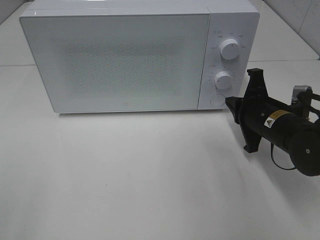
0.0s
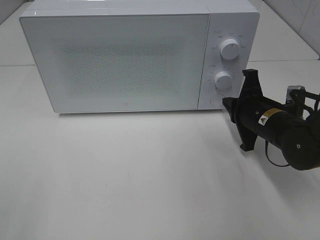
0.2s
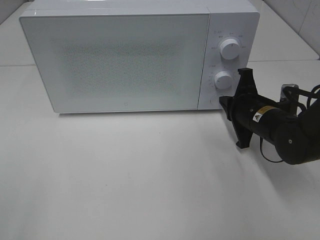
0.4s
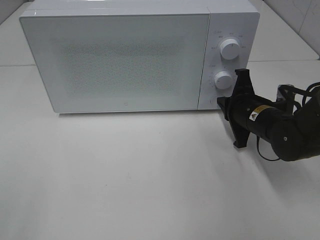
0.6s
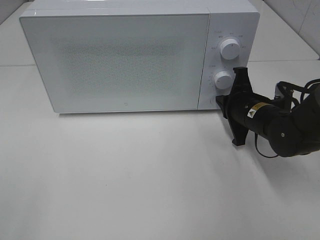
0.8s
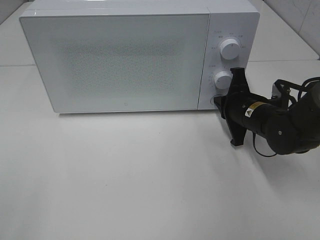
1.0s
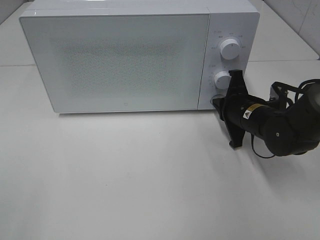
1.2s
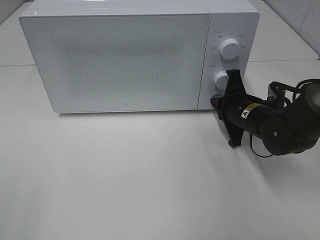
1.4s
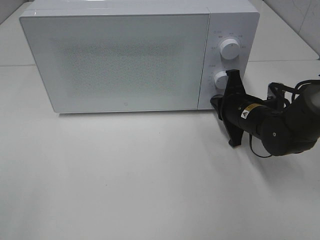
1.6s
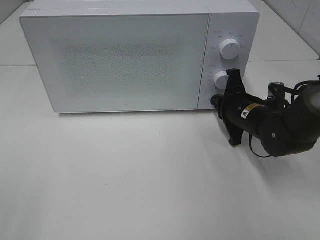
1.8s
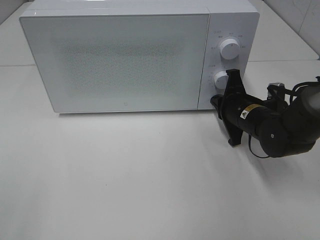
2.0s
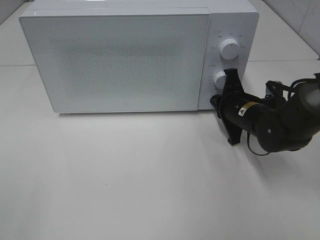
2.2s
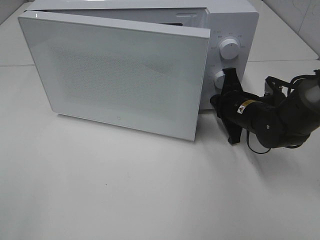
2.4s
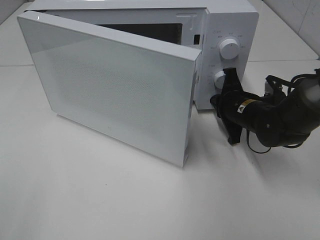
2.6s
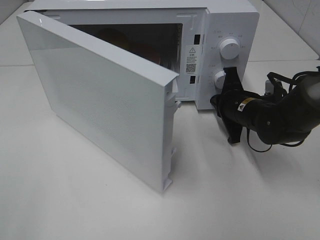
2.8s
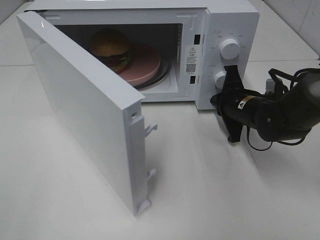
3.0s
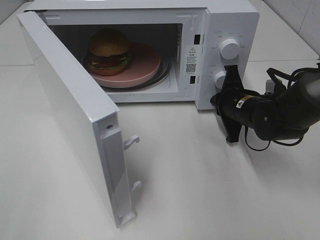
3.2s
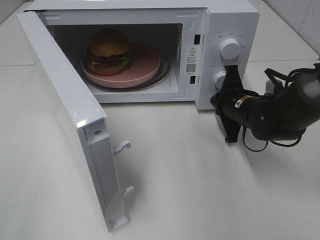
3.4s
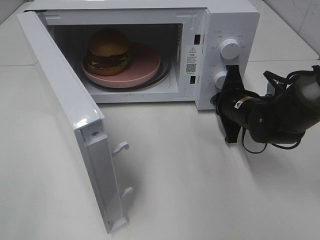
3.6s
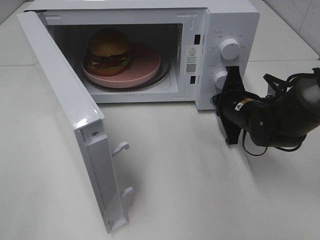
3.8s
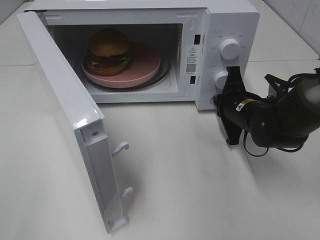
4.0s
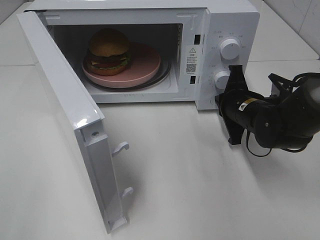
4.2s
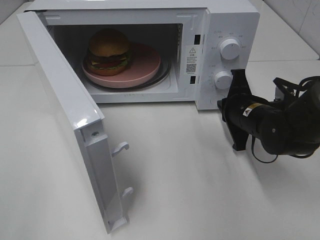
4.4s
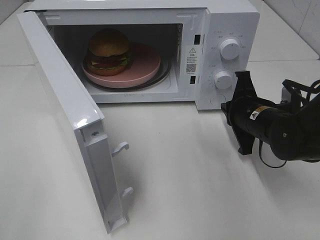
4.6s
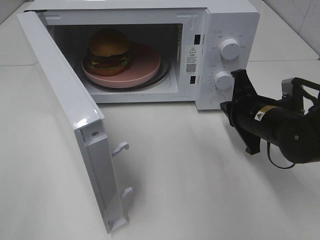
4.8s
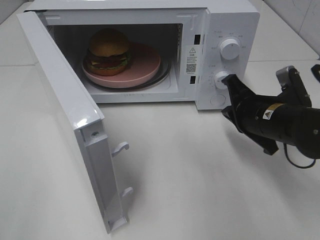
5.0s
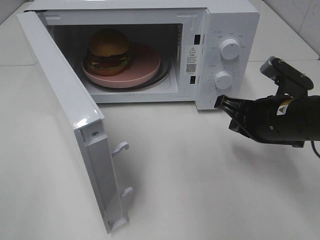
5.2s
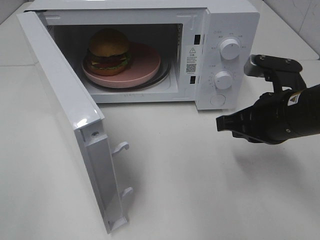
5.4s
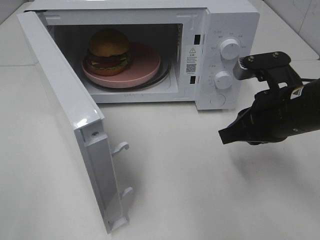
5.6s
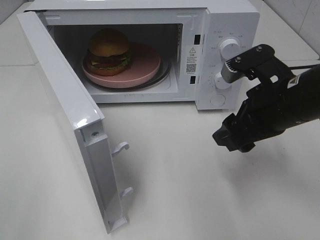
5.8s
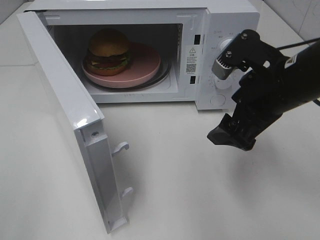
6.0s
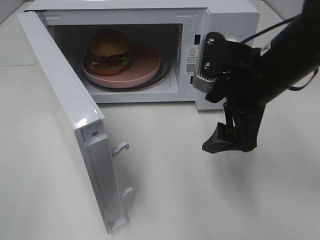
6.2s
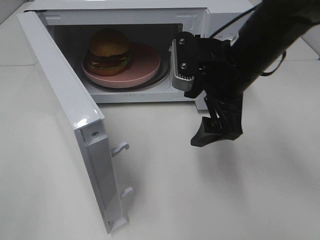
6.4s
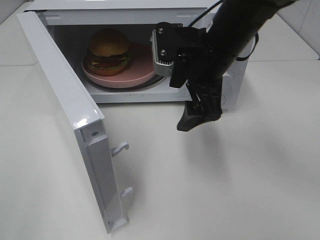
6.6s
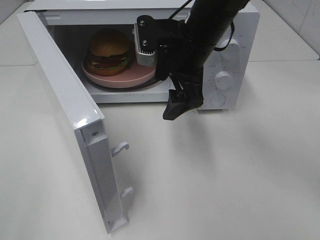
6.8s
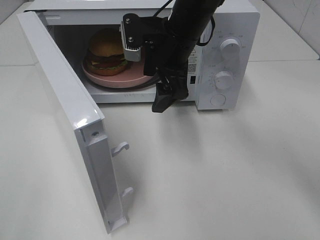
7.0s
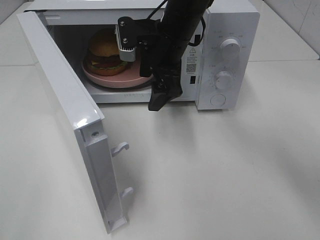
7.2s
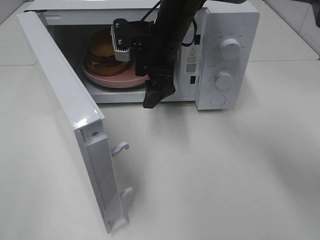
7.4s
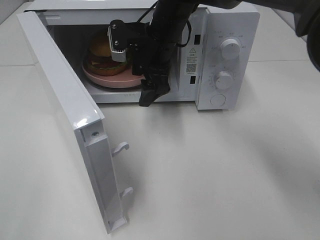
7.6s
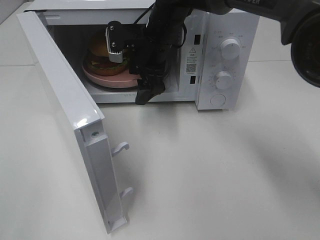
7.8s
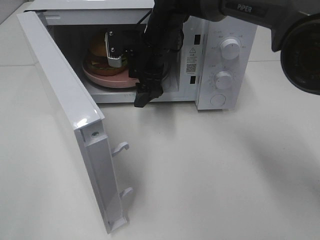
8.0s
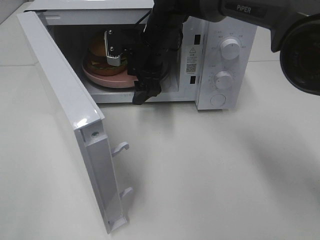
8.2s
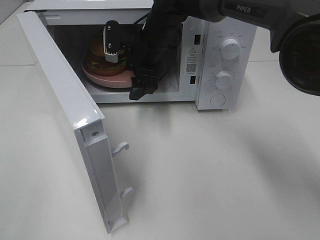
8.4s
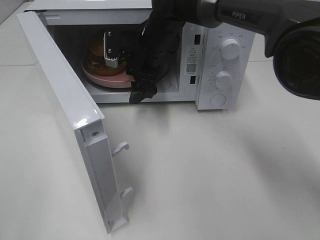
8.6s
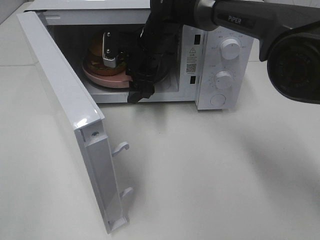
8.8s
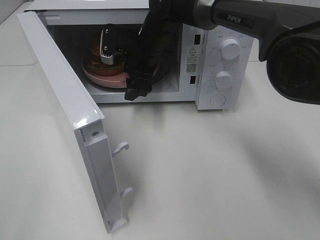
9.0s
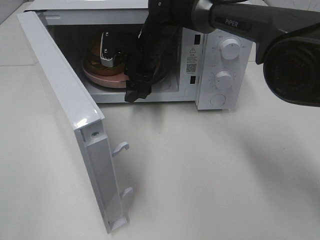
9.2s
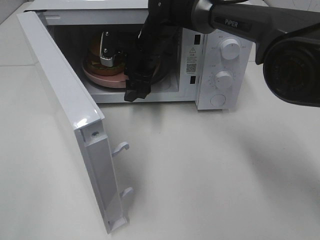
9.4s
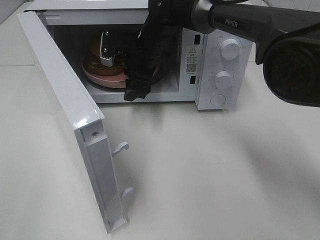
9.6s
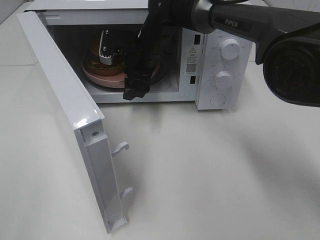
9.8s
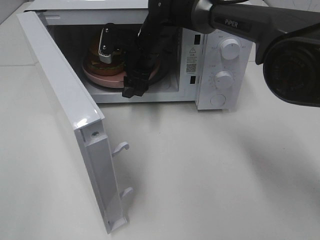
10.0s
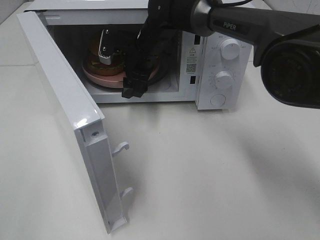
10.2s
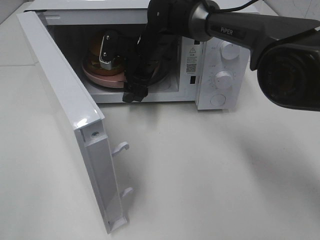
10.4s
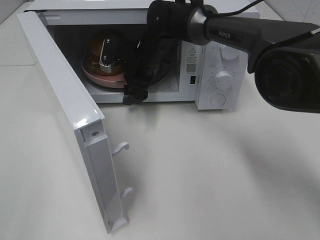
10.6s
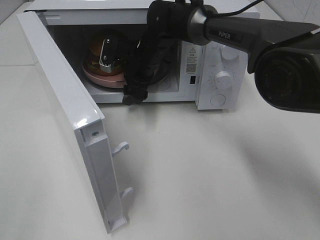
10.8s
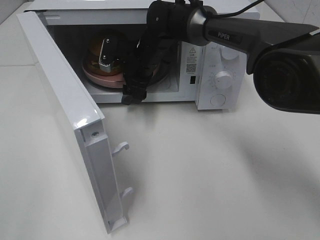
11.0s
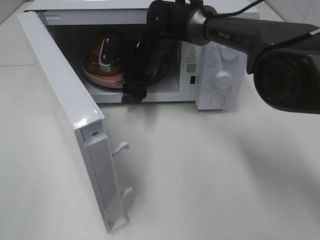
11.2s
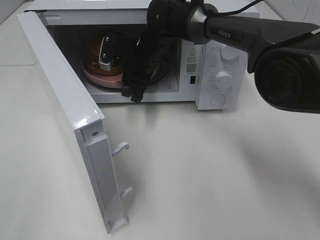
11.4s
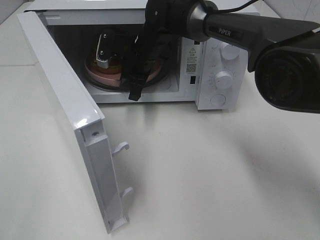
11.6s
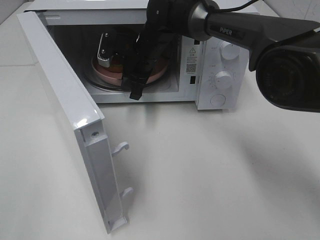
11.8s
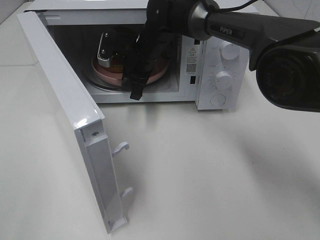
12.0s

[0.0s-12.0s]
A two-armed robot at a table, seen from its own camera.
Task of the whole recording: Heat the burger.
Step, 0.0s to 4.2s: Right hand: press the switch.
Step, 4.4s to 11.6s: Right hand: grab the plate with the hamburger.
0.0s to 1.6s: The right gripper changes place by roughly 5 cm.
4.4s to 6.0s: The right gripper moves upward and backward, roughly 15 cm, and opens.
6.0s to 7.6s: The right gripper is displaced forward and to the left by roughly 25 cm.
7.6s to 9.0s: The grippers move only a little.
9.0s to 10.4s: The grippers stay close to where they were, moving slightly.
10.4s to 12.0s: The right gripper closes its fingers.

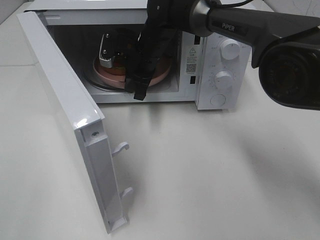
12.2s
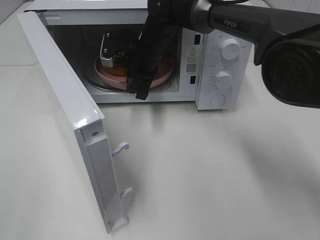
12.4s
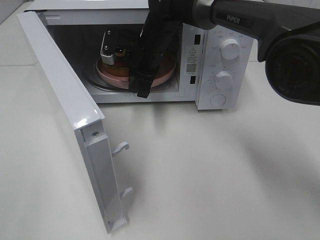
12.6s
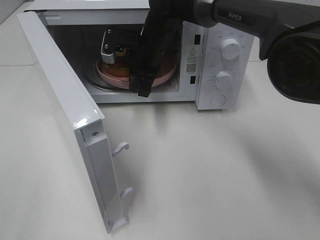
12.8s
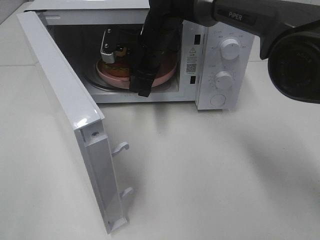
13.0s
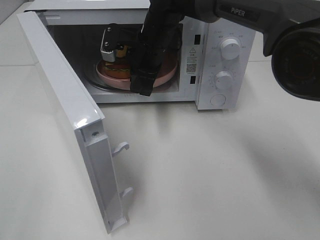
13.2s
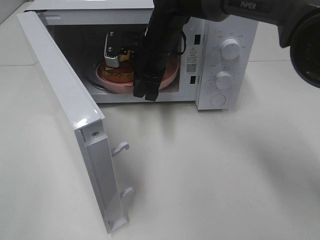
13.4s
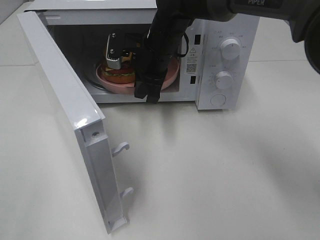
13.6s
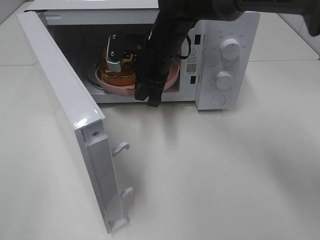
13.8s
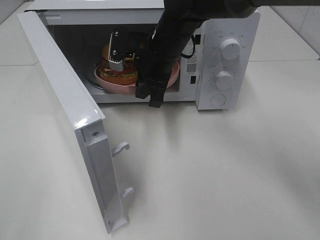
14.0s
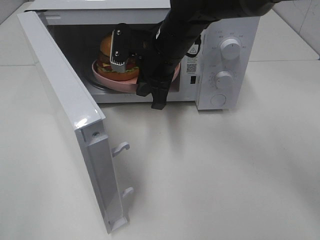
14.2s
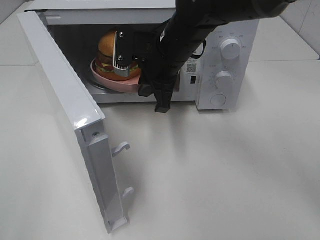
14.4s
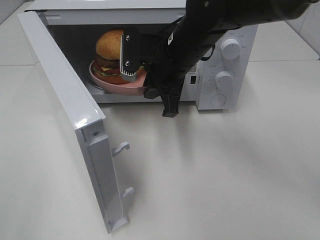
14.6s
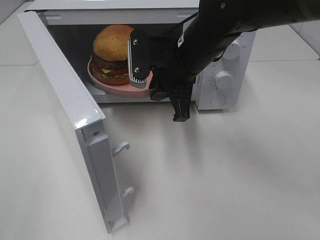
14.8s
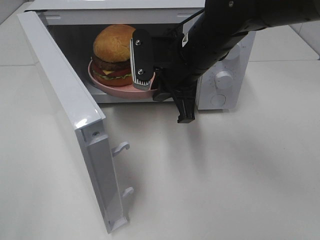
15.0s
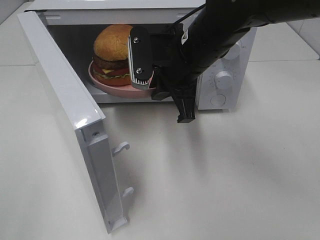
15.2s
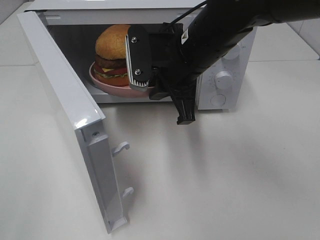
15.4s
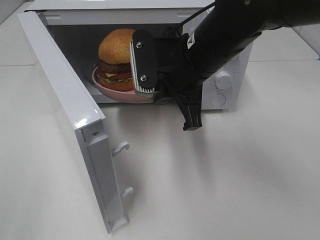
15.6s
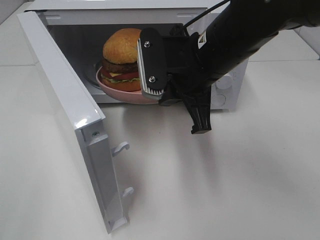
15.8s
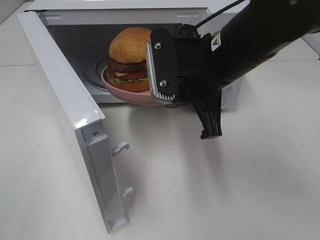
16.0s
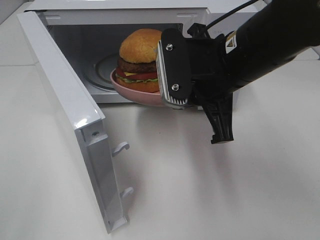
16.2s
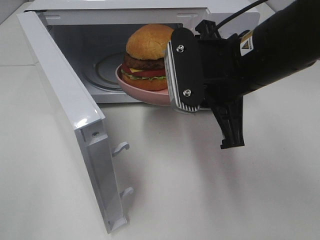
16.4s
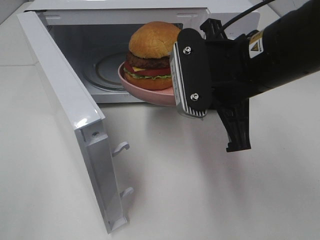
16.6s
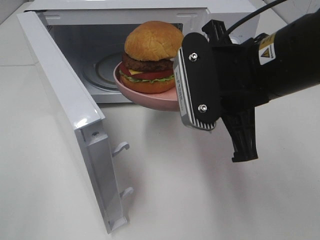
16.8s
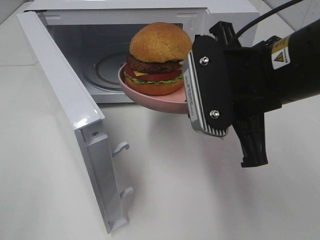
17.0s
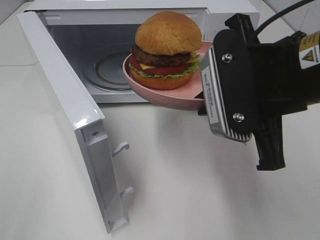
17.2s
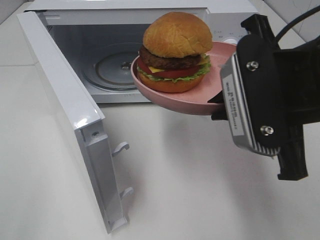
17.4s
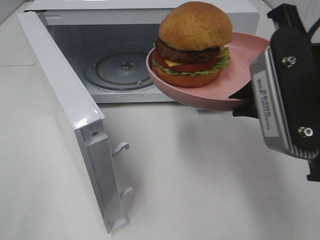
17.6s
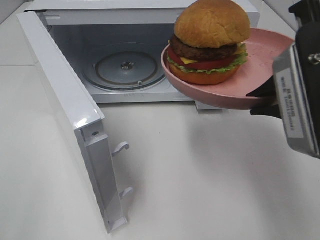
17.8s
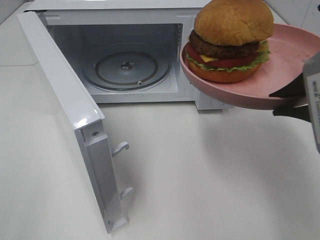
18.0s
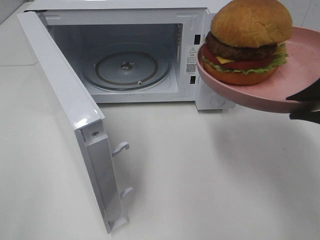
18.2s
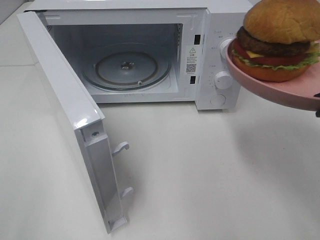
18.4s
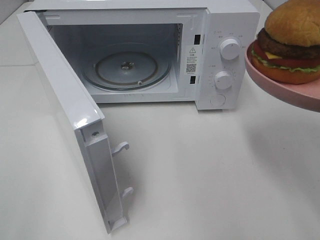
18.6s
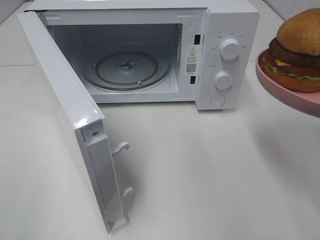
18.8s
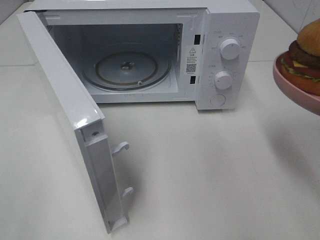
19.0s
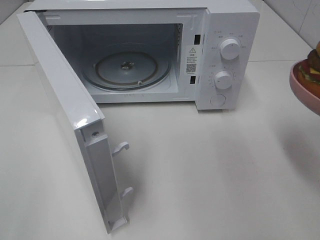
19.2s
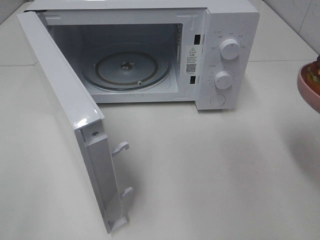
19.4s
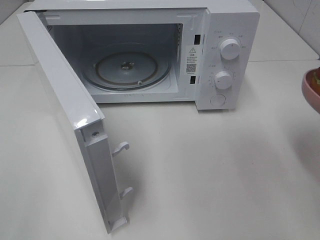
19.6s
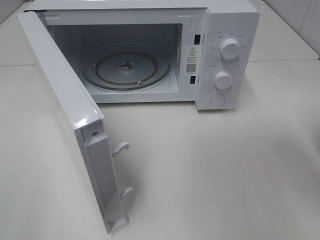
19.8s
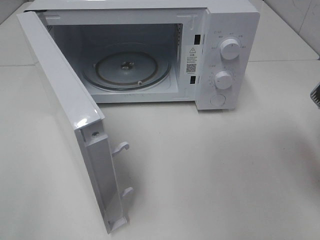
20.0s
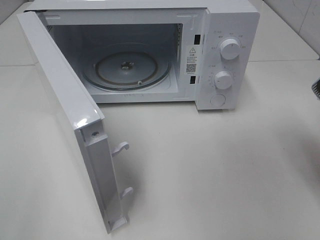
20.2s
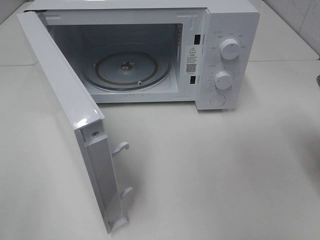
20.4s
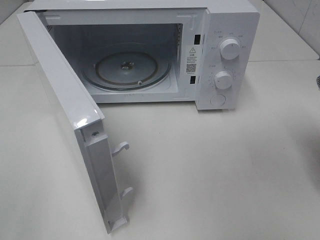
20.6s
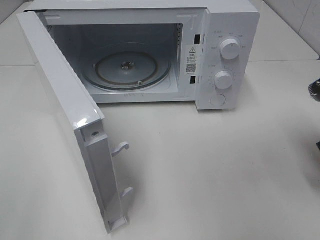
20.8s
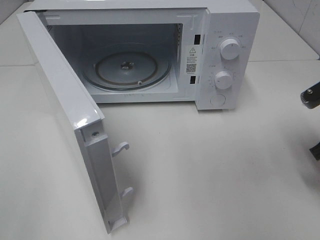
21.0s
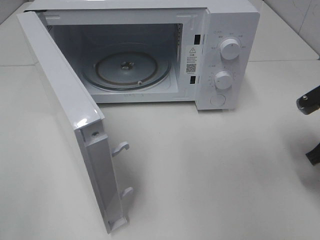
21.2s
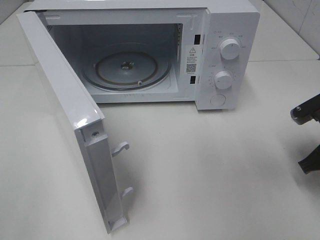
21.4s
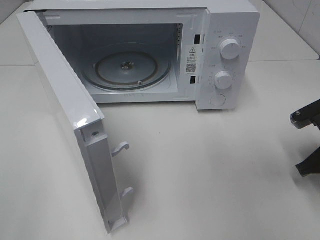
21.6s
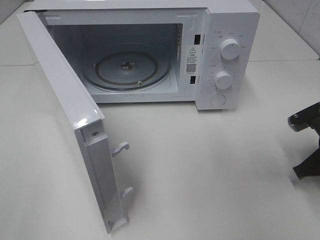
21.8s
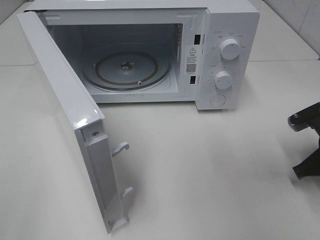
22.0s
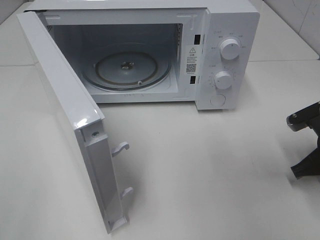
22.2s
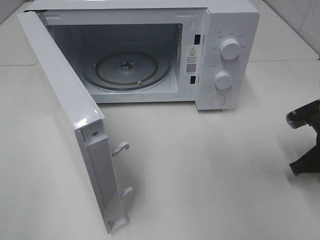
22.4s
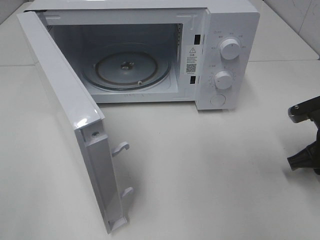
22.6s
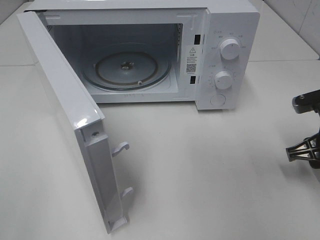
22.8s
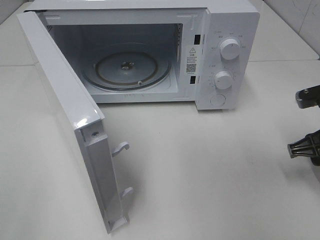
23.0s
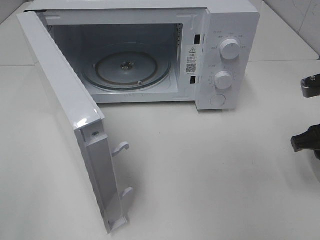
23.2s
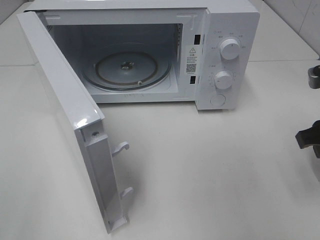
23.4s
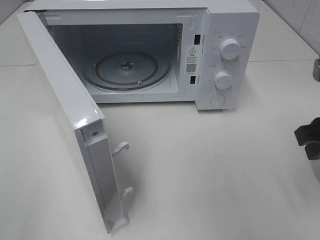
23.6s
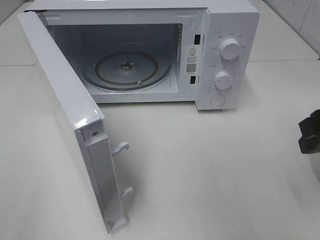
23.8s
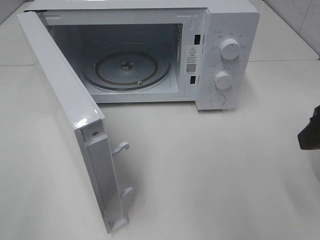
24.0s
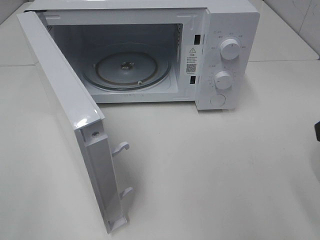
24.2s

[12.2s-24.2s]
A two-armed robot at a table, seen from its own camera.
Task of the whole recording: Heat the burger.
Step, 12.2s to 22.2s: Right hand: place the plate on the table.
12.2s to 13.8s: The right gripper shifts by approximately 5 cm.
13.8s to 15.2s: The right gripper moves backward, some 10 cm.
15.2s to 16.6s: The right gripper moves backward, approximately 10 cm.
16.6s to 18.2s: The right gripper shifts roughly 15 cm to the right and backward.
18.2s to 19.8s: The right gripper shifts approximately 10 cm downward and to the right.
19.8s to 21.2s: The right gripper shifts approximately 15 cm downward and forward.
21.2s to 22.6s: The right gripper opens.
22.6s to 24.2s: The right gripper is displaced upward and backward by about 20 cm, and opens its fingers.
